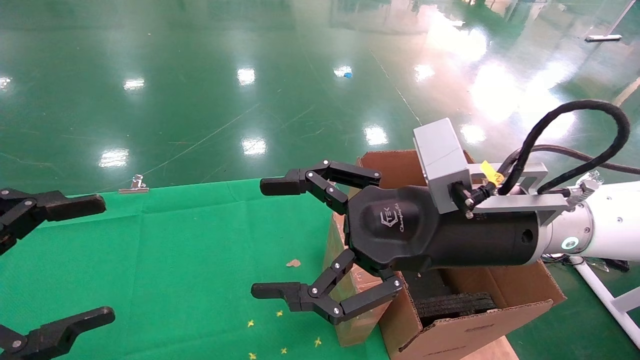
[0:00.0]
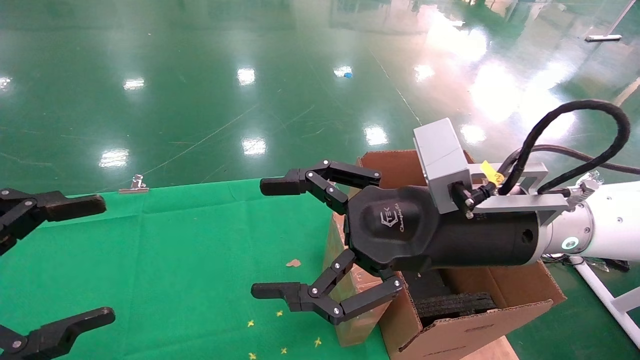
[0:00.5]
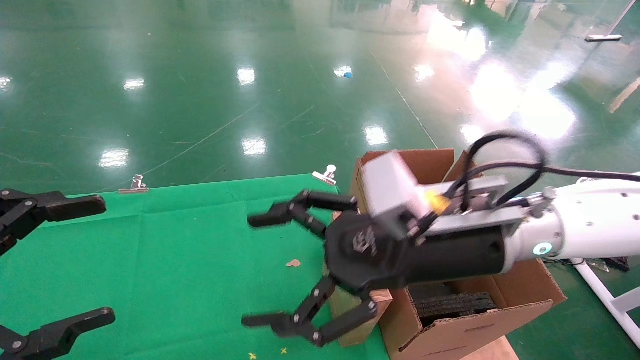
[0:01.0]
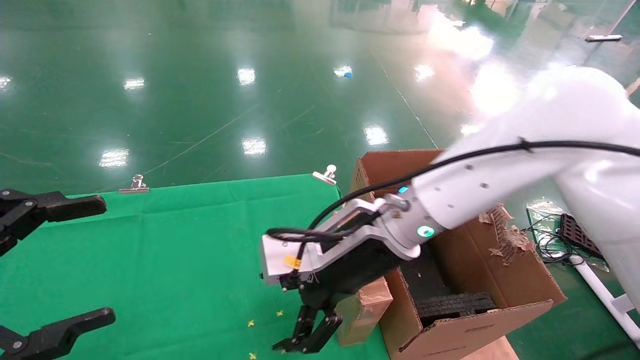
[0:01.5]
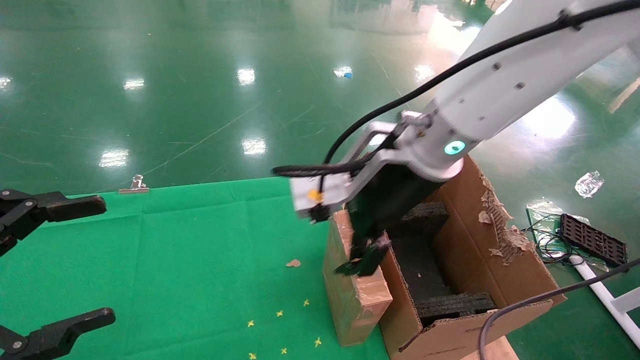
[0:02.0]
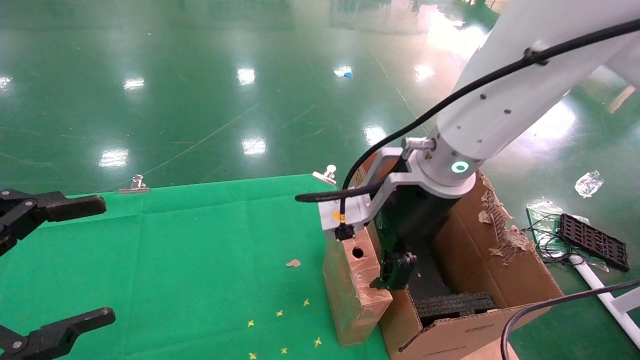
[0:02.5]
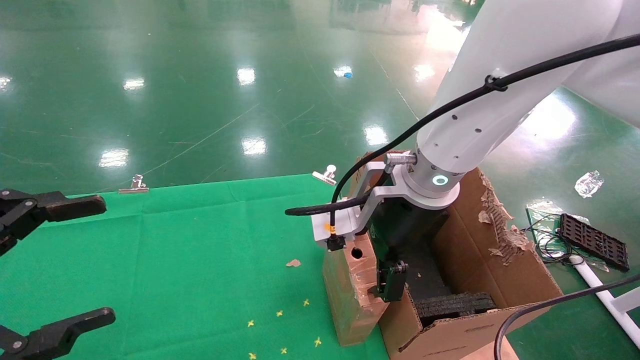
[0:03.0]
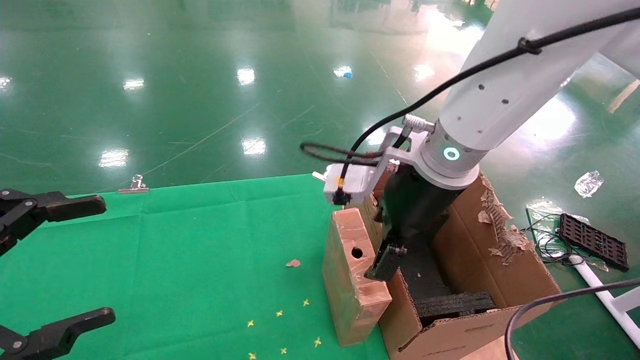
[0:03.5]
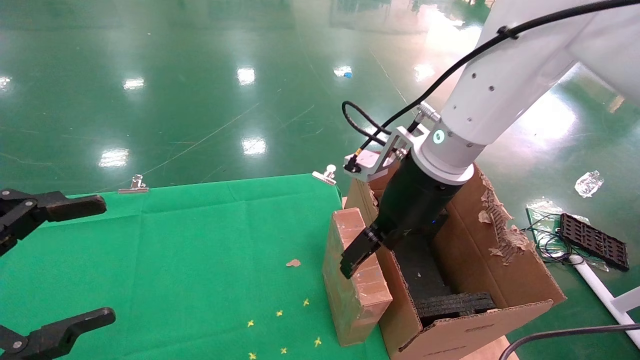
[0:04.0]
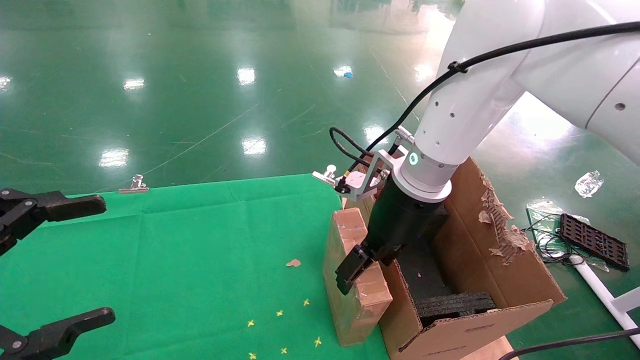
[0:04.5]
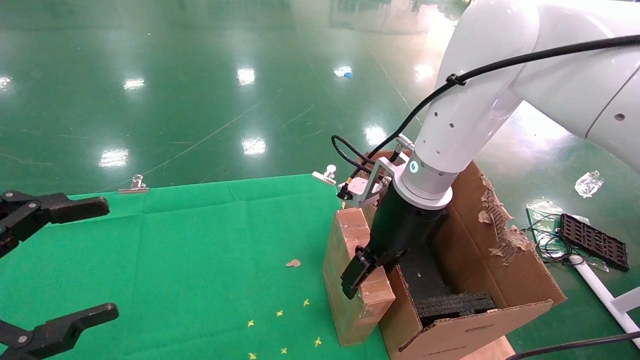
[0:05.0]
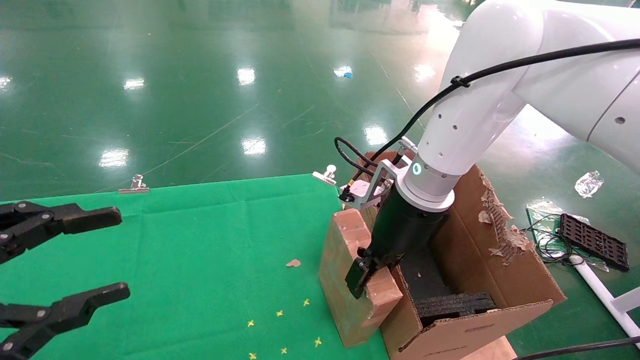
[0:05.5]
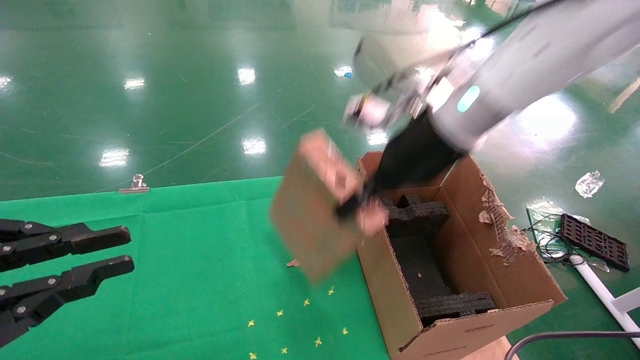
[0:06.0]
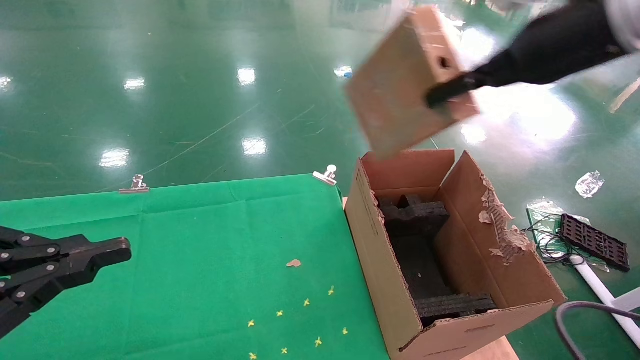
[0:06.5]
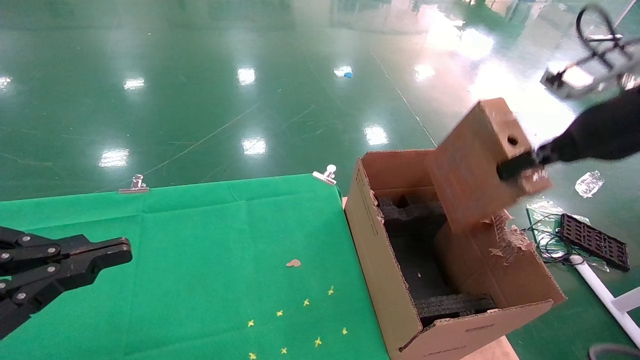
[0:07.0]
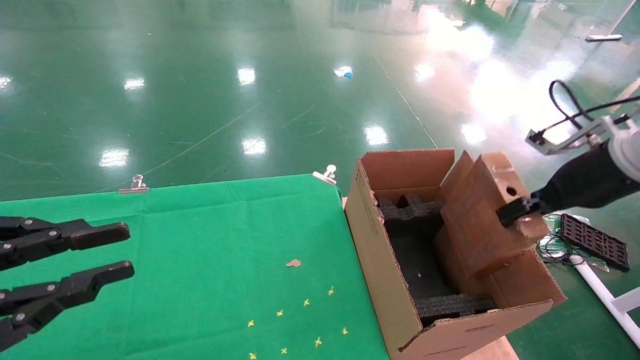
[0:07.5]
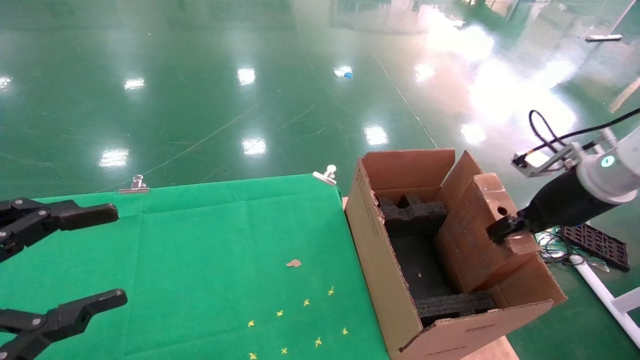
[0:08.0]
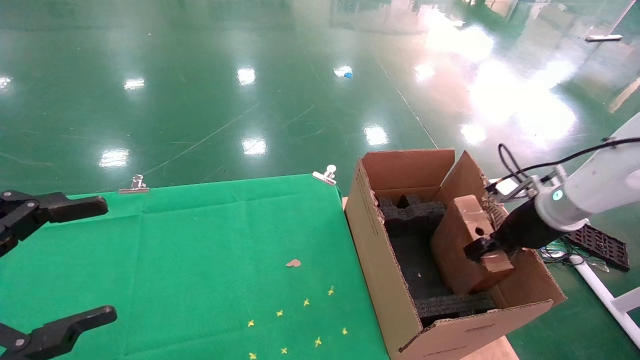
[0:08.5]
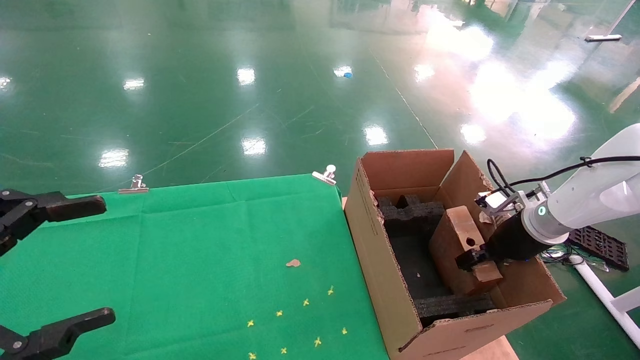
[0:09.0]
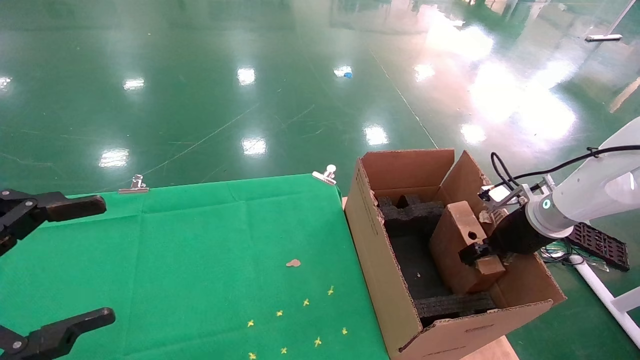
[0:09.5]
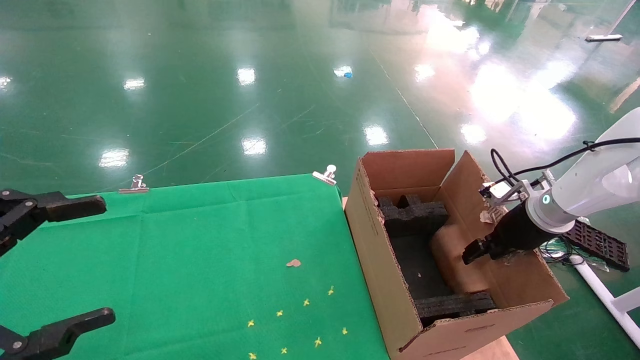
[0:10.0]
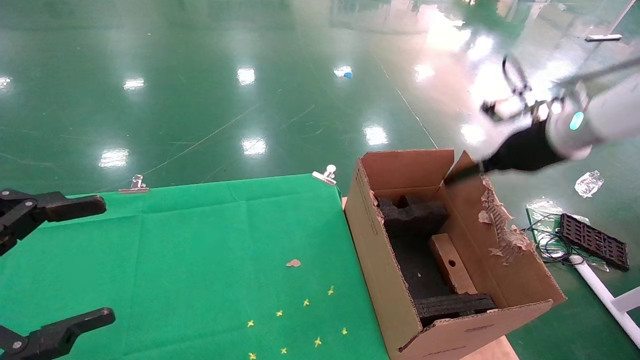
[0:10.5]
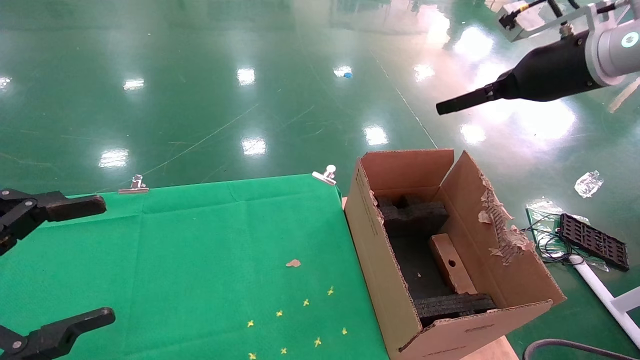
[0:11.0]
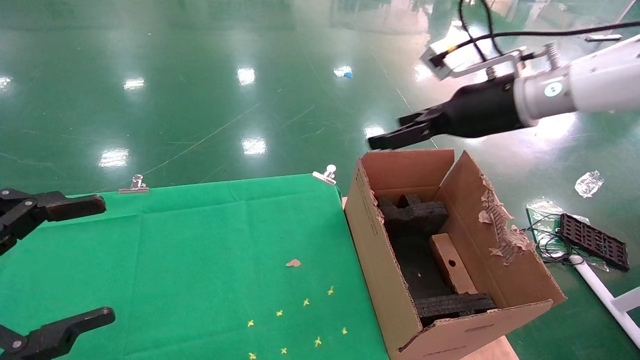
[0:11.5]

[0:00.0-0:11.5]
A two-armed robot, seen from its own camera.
Task of the whole recording: using a robotic arm to pick up a cardboard box and palace it the carton.
Step, 0:01.0 to 0:05.5: Pick up the mouse and the power cord paper box.
Step, 0:06.0 to 0:10.5: Place the mouse and the power cord paper box into the container.
0:00.0 to 0:02.0: The right gripper travels forward and to the left by approximately 10 cm.
0:02.0 to 0:04.0: The right gripper shifts by about 5 cm.
0:04.0 to 0:06.0: The left gripper closes, while the right gripper travels upward by roughly 5 cm, and closes its fingers.
0:06.0 to 0:07.5: The right gripper goes some 20 cm to the right.
0:07.5 to 0:09.5: The left gripper opens its fingers, while the right gripper moves downward and forward, about 15 cm.
0:09.5 to 0:11.5: The right gripper heads upward and to the left, covering approximately 20 cm, and opens.

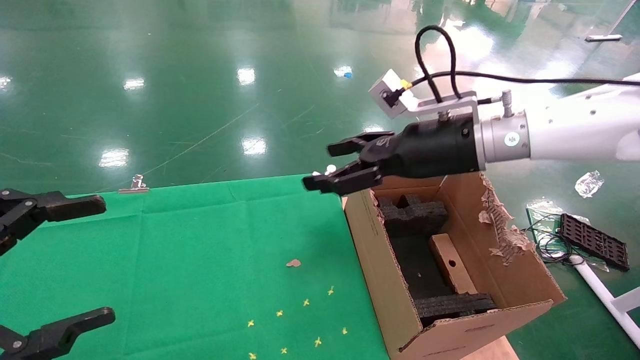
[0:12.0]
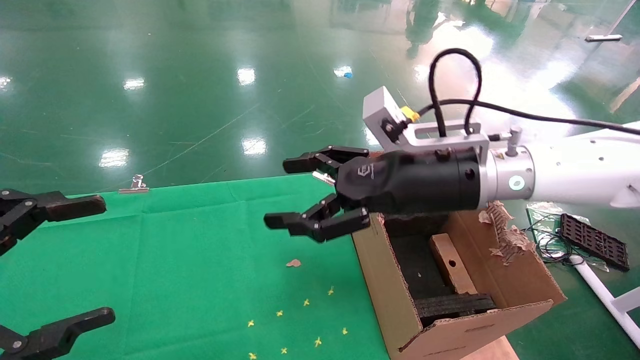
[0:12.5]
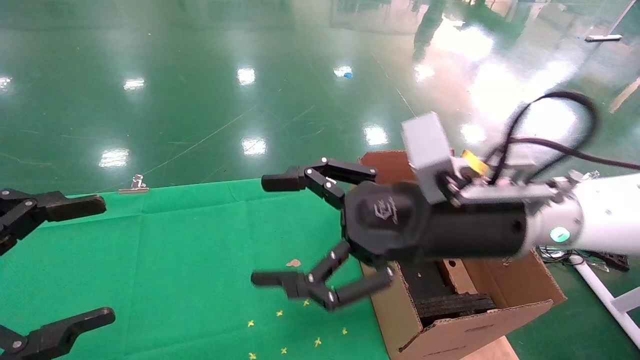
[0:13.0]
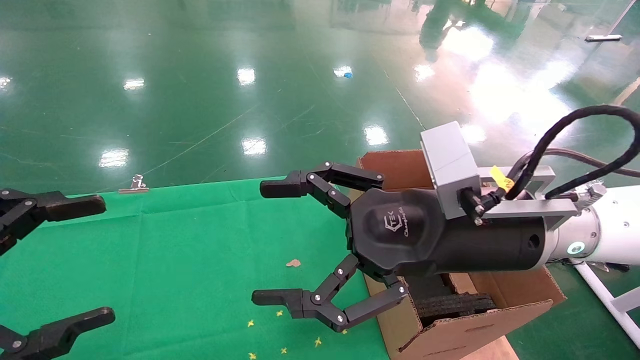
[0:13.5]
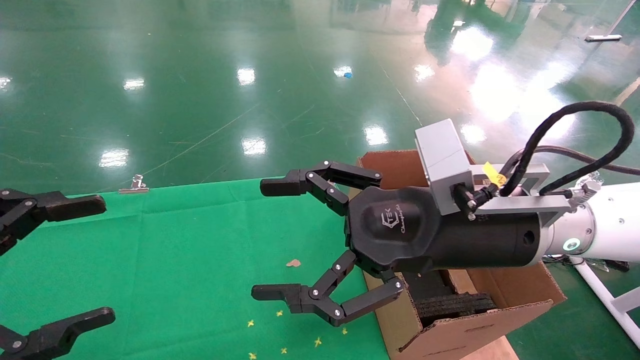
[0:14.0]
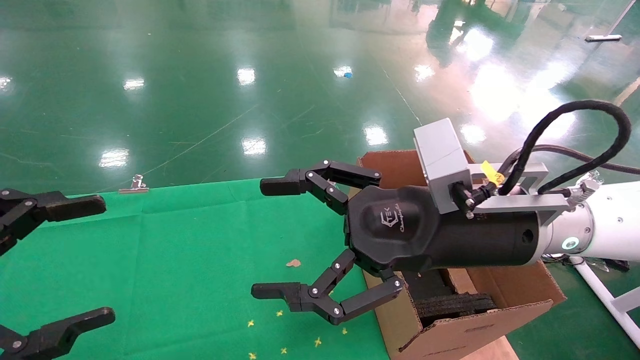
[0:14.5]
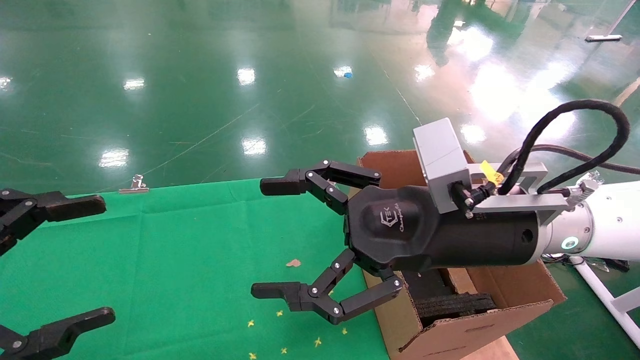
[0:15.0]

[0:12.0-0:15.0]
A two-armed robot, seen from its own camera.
Task of the whole recording: using a robotic arm to pick up a cardboard box and palace it the carton.
0:12.0 to 0:13.5: The right gripper goes some 10 cm backward.
0:13.5 to 0:15.0: Both grippers stay about where they are.
